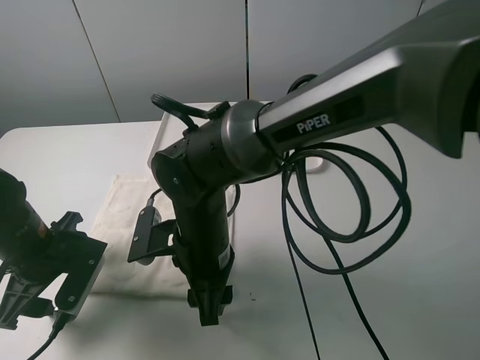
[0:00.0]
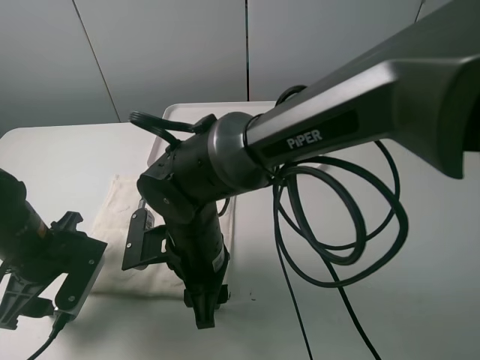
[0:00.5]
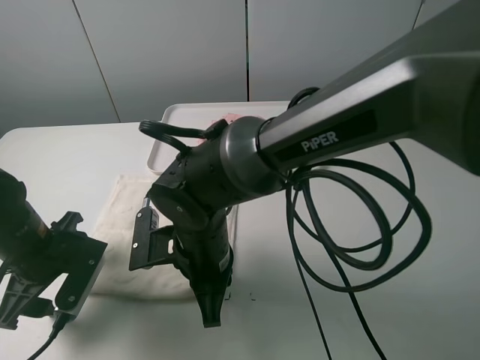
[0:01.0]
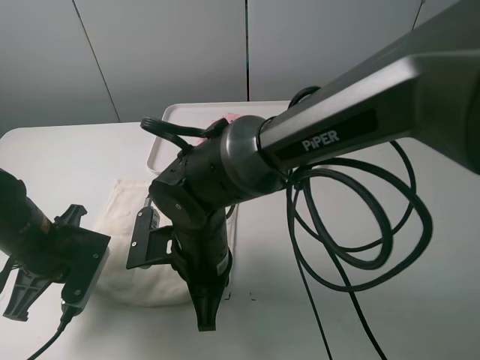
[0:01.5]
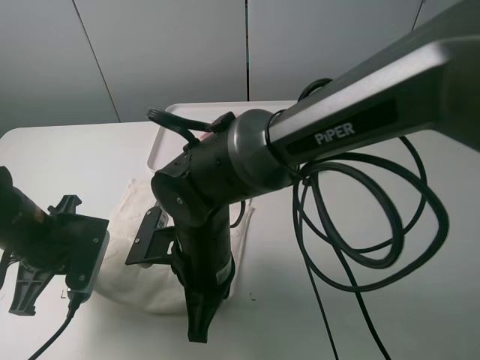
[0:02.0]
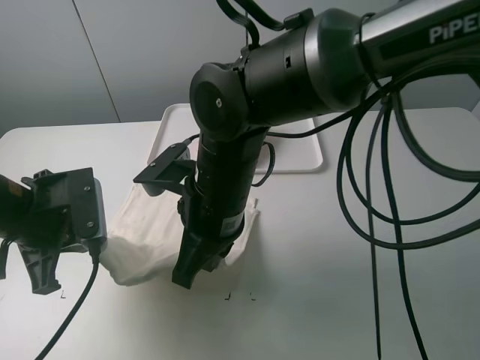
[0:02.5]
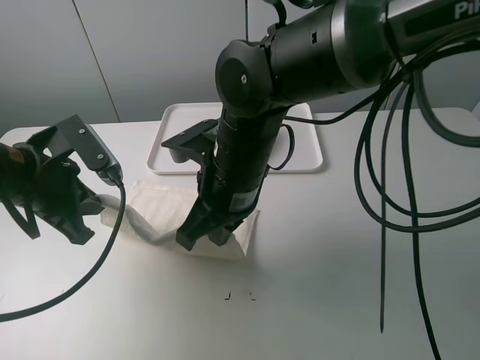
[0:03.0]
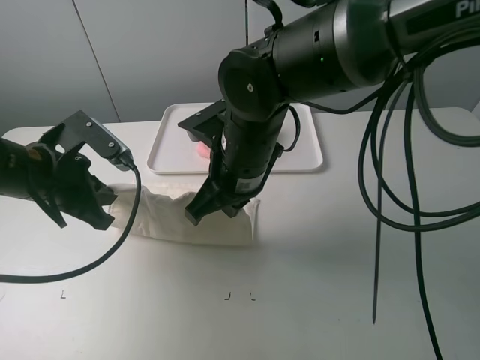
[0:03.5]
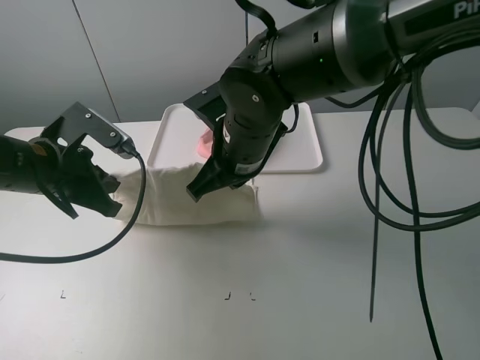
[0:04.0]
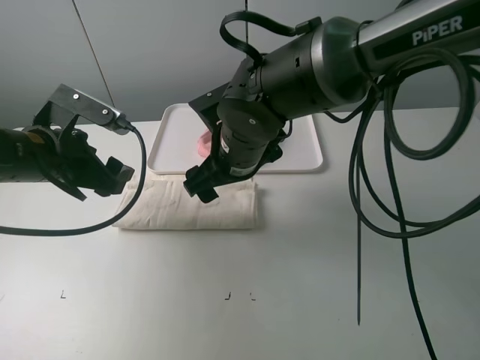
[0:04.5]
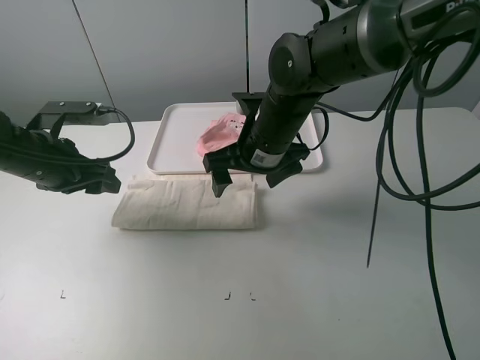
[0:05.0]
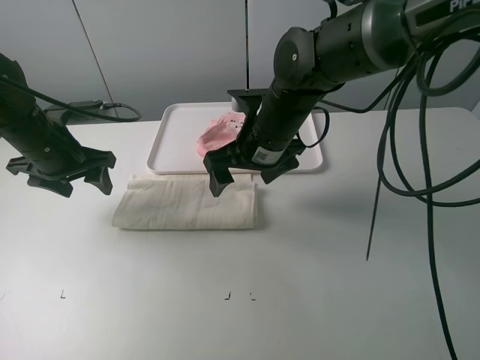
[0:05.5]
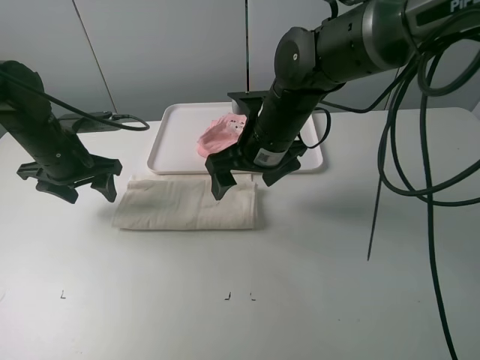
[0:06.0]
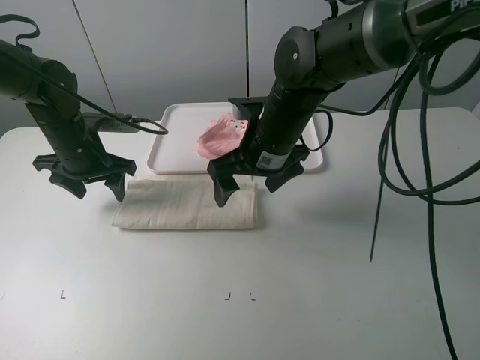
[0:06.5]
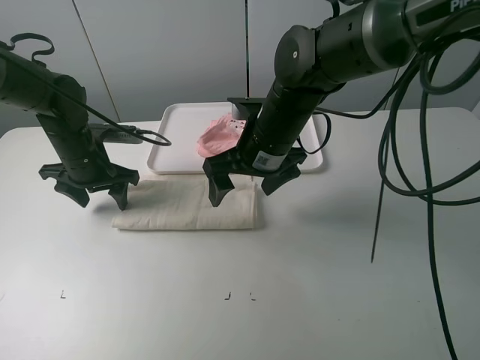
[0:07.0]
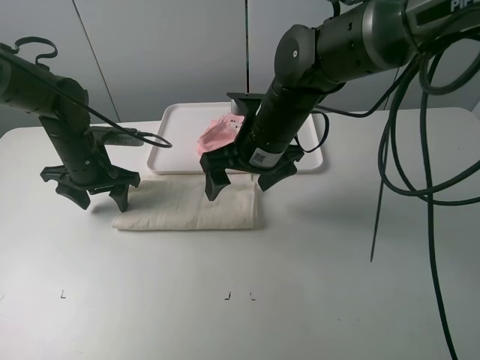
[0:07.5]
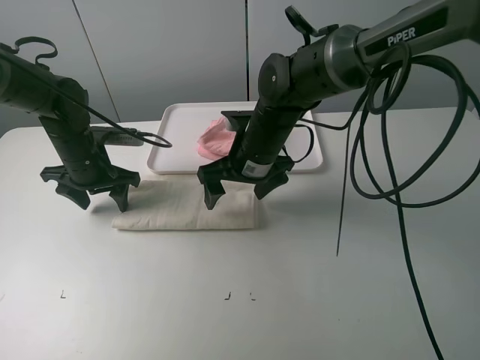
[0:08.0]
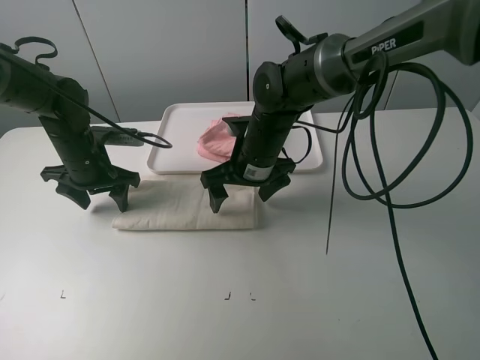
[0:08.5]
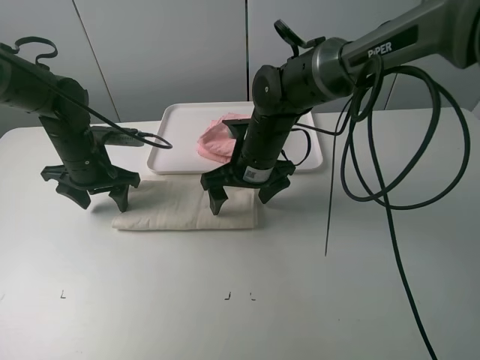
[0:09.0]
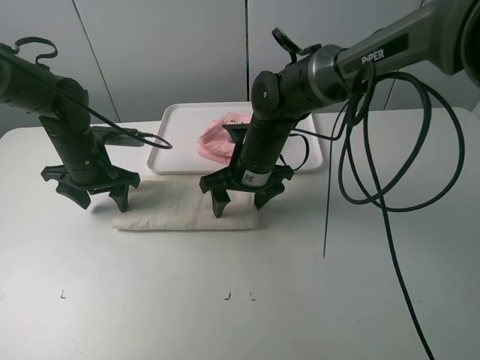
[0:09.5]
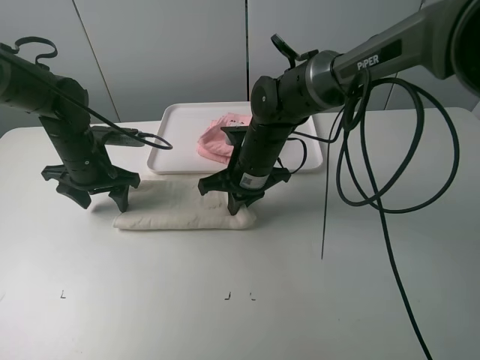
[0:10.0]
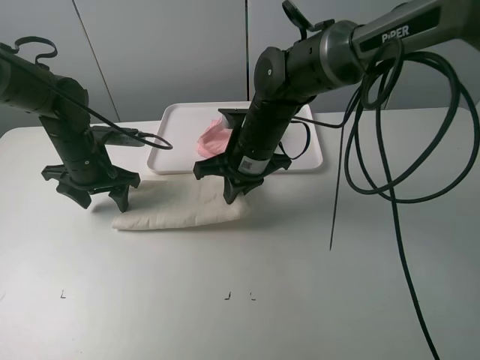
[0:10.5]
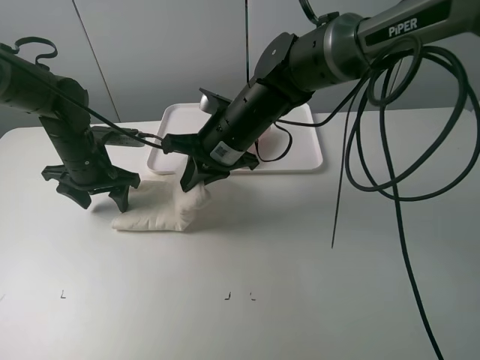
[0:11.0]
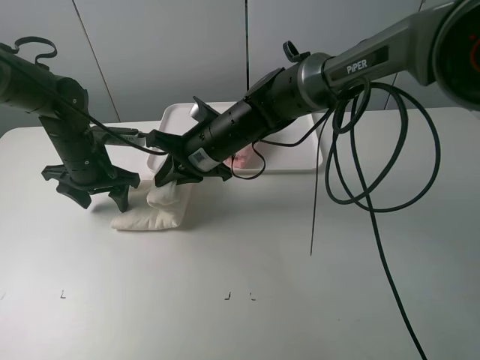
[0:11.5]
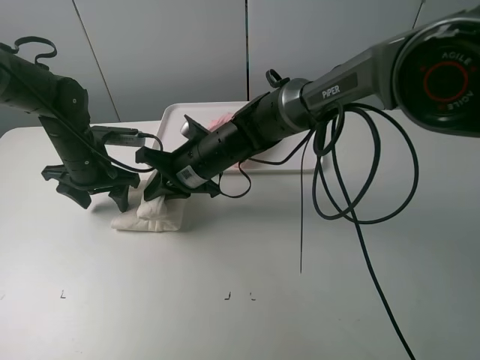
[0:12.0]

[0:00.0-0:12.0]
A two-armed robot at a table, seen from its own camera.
Task of the whole recording: fold one of the towels by two grippers and place it on the tray,then fold another towel by two grippers and place it on the folded towel.
Step, 0:02.0 to 0:04.5: Fold the white towel upwards with the left gripper.
Step, 0:05.0 to 0:07.0: Press the white towel with the left gripper.
Step, 0:07.5 to 0:09.5: Grasp the white towel with the right gripper.
0:00.0 to 0:02.0: The left gripper closes; the right gripper closes up.
0:02.0 to 0:04.0: The right gripper is displaced forward and upward by approximately 10 cm. Meanwhile the left gripper shifts by roughly 5 cm.
0:04.0 to 0:06.0: The left gripper is displaced forward by approximately 10 cm, and opens. The right gripper changes place by about 5 cm, and opens its fingers.
0:08.0 to 0:10.0: The right gripper closes up.
0:10.0 to 0:12.0: The right gripper moves to the left, roughly 5 cm.

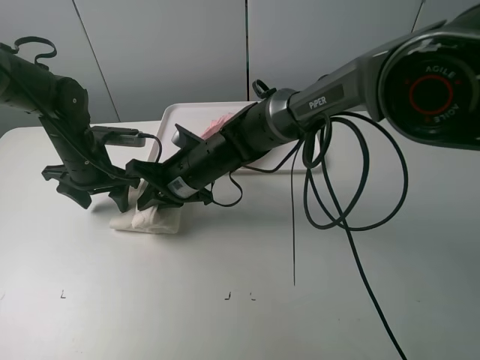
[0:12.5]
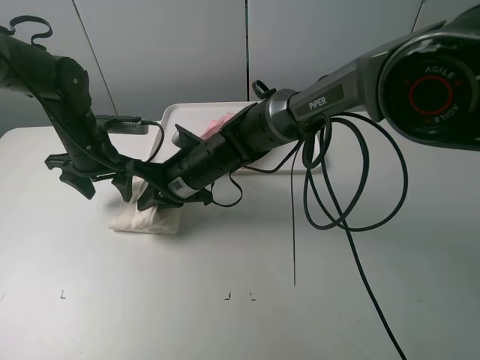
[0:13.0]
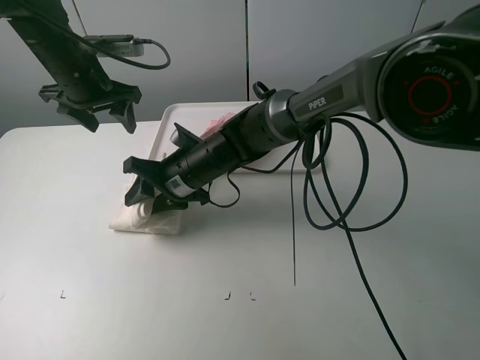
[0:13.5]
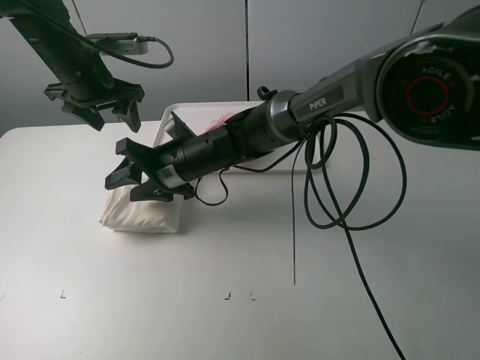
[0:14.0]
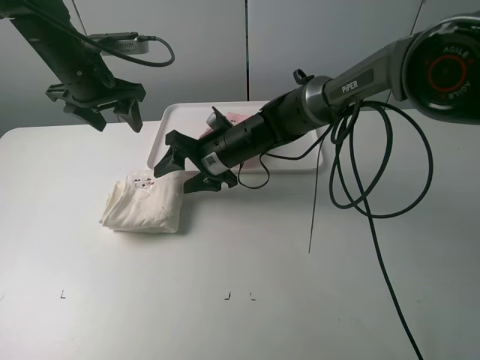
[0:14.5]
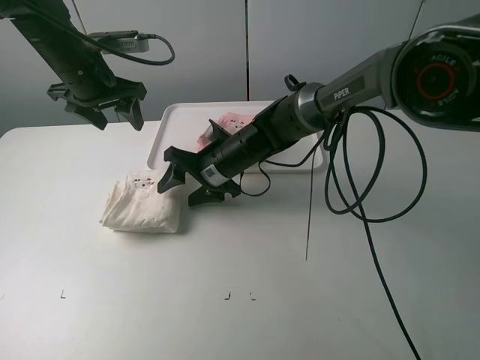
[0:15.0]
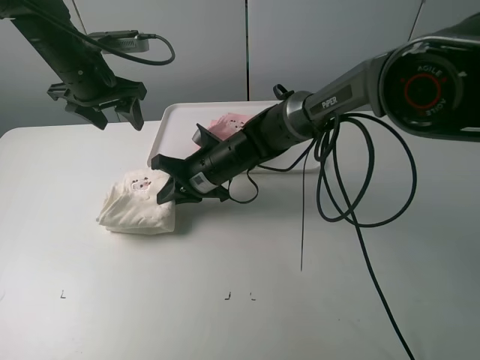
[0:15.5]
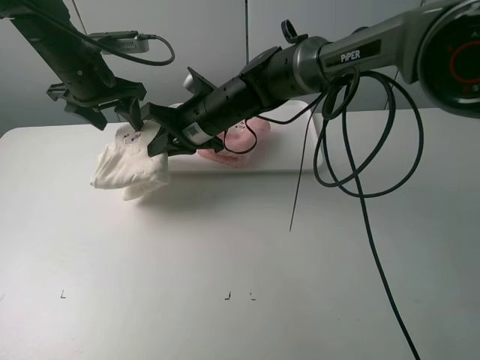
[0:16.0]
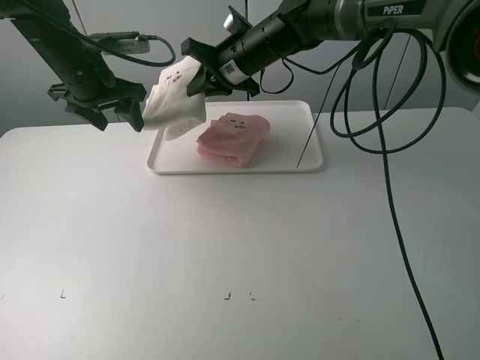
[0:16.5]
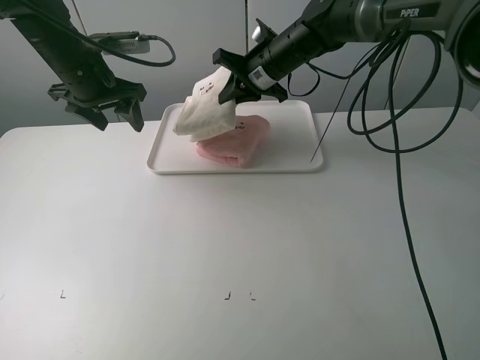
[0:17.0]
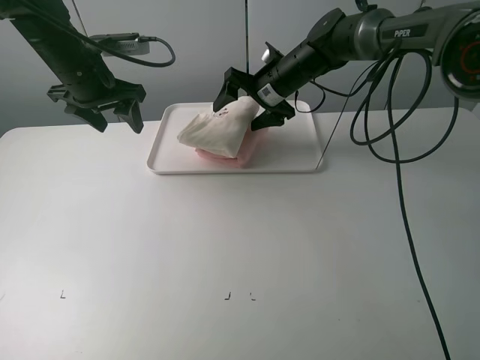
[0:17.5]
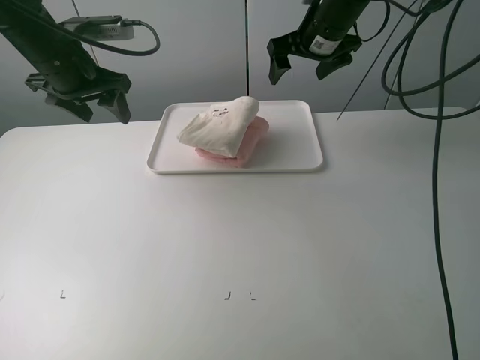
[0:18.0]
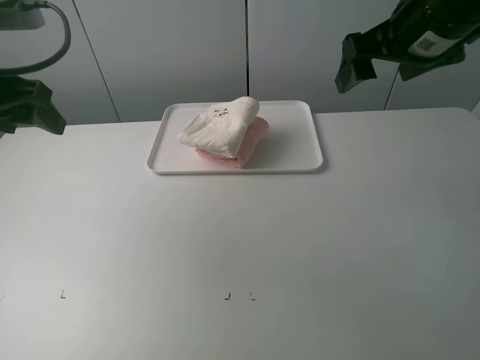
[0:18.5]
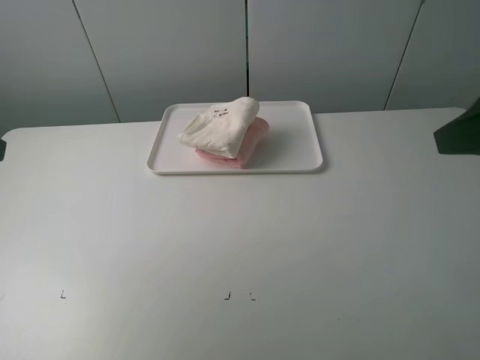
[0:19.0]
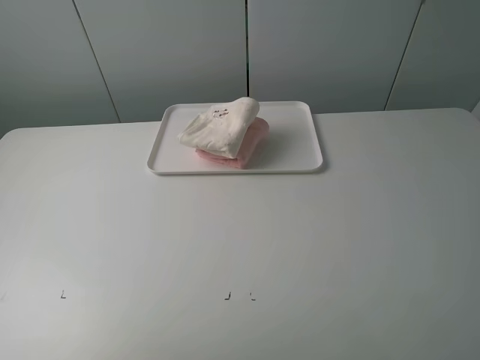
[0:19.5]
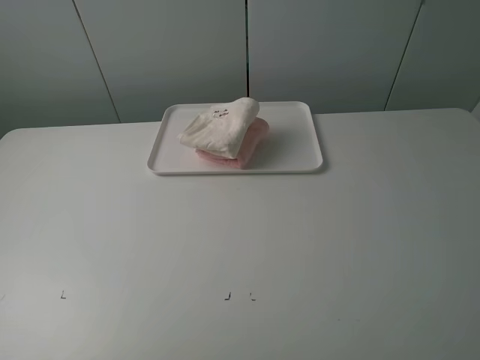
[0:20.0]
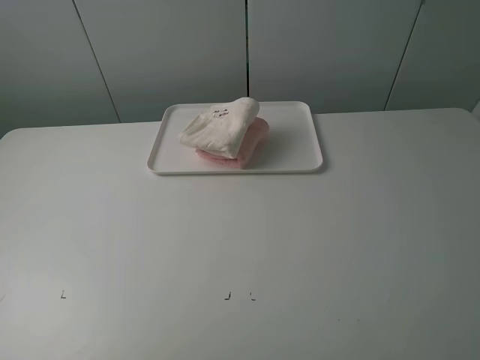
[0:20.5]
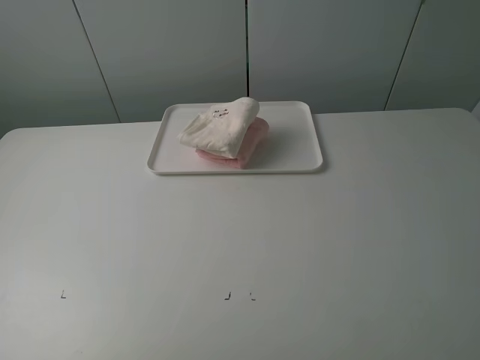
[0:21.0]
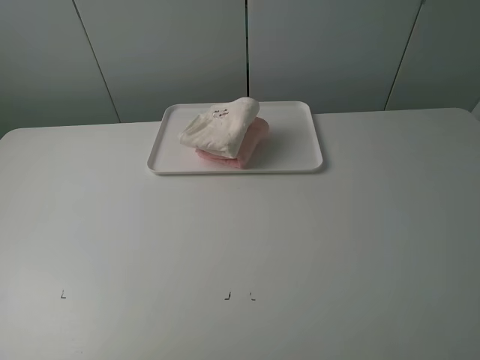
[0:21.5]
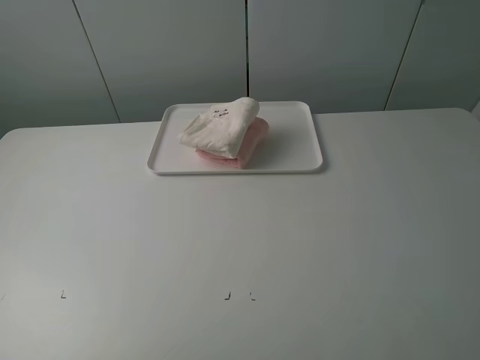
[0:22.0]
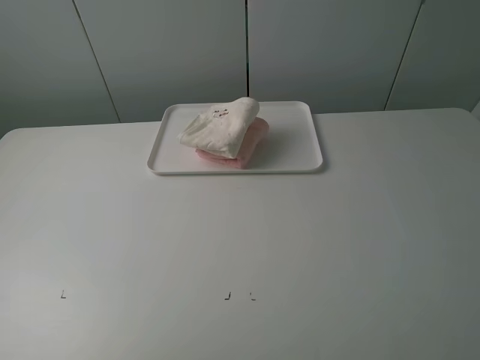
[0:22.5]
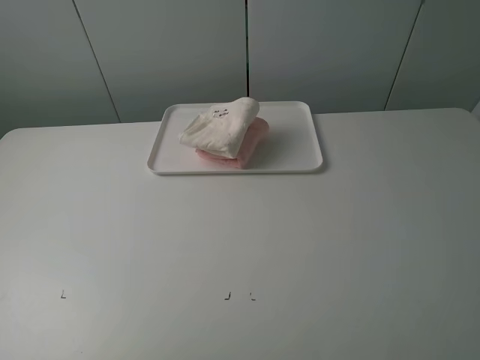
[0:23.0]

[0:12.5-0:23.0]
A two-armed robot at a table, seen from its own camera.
Task of the whole recording: fold one of the towels by two grippers and place it on the tray,then fold another towel by two grippers and place it on the folded towel.
Step, 0:14.5 to 0:15.5: Grasp the white towel with the right gripper.
Step, 0:16.0 to 0:17.5: Place the white towel on the pink towel with the right gripper.
0:12.5 to 0:14.5: The left gripper goes roughly 10 cm upward, while the right gripper changes place by roughly 5 cm, and opens its fingers.
0:14.5 to 0:16.5: The right gripper moves upward and forward, some 15 cm, and closes up.
0:16.5 to 0:19.0: The right gripper heads backward and to the right, covering approximately 40 cm, and opens up. Meanwhile the left gripper travels backward by some 25 cm.
0:19.0 to 0:21.0: Both grippers move backward, roughly 15 cm.
